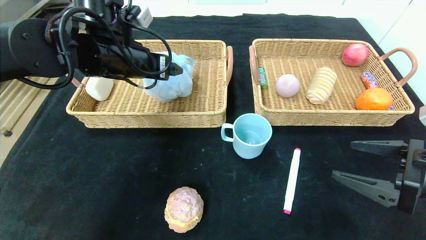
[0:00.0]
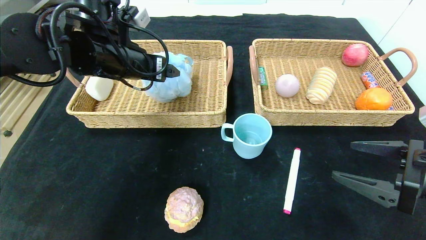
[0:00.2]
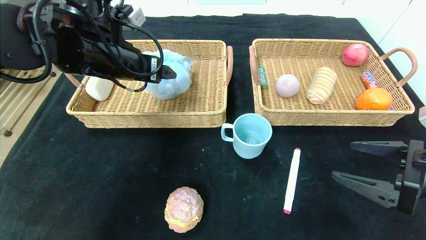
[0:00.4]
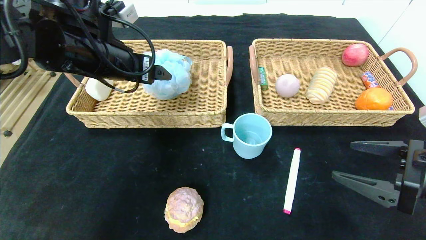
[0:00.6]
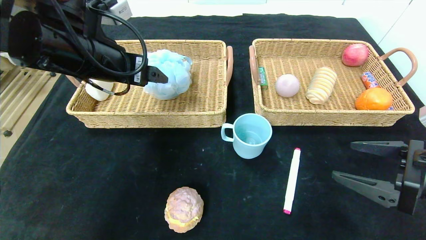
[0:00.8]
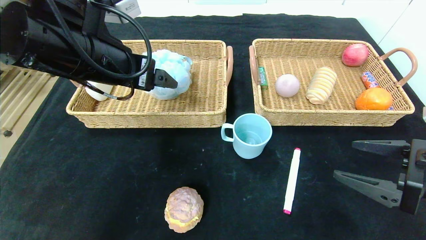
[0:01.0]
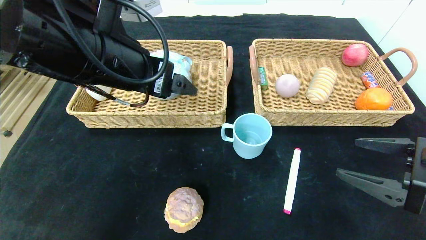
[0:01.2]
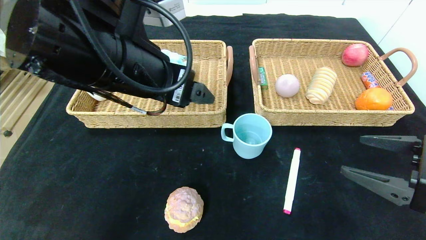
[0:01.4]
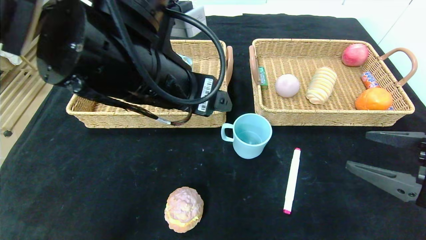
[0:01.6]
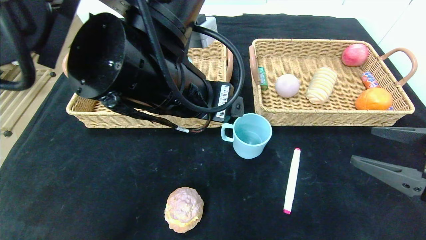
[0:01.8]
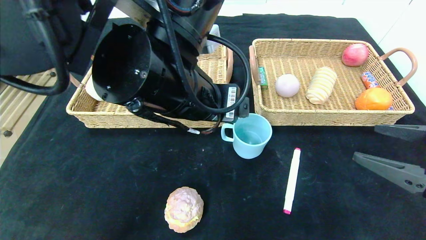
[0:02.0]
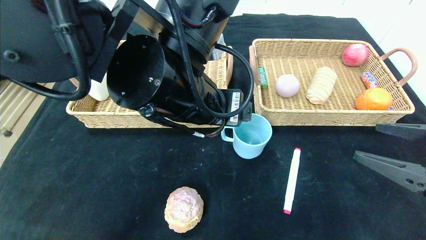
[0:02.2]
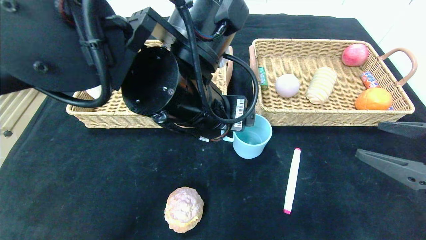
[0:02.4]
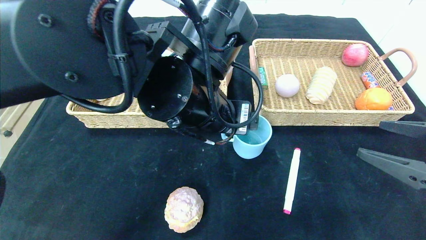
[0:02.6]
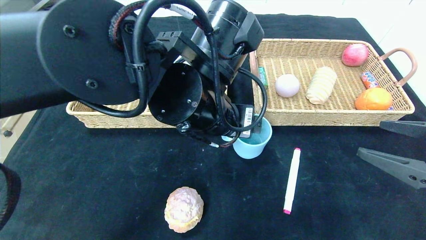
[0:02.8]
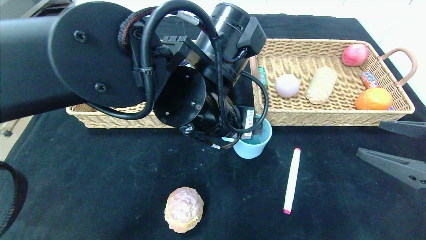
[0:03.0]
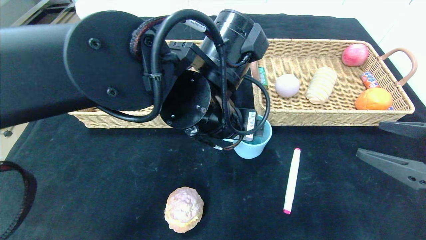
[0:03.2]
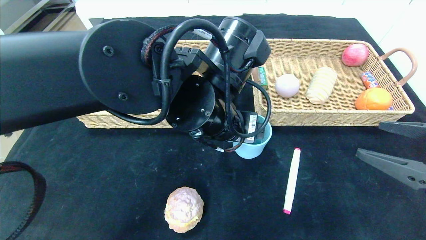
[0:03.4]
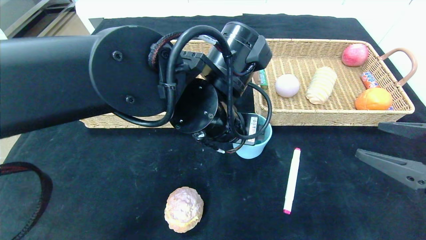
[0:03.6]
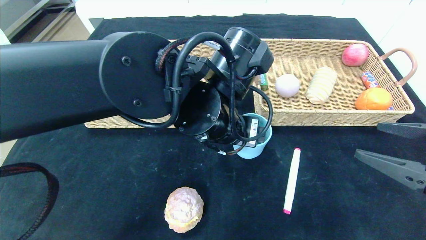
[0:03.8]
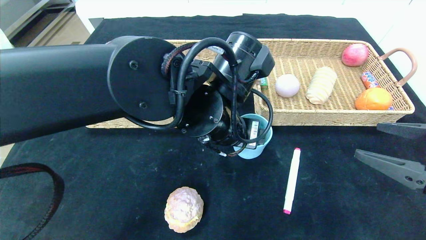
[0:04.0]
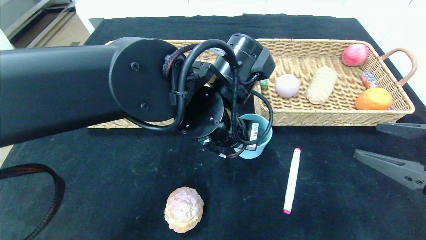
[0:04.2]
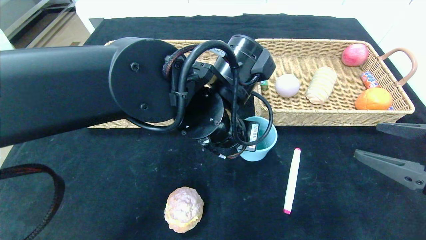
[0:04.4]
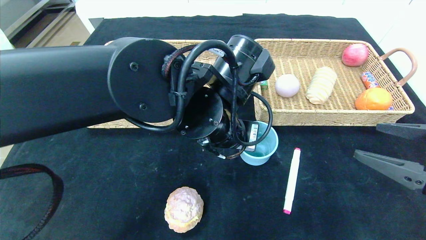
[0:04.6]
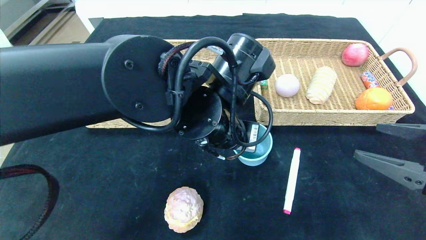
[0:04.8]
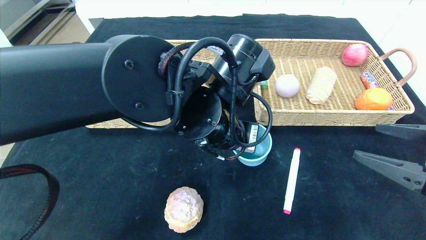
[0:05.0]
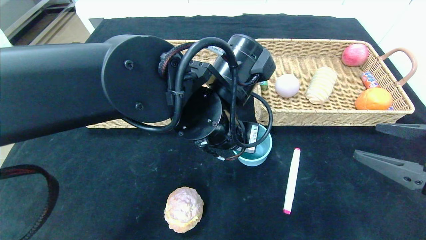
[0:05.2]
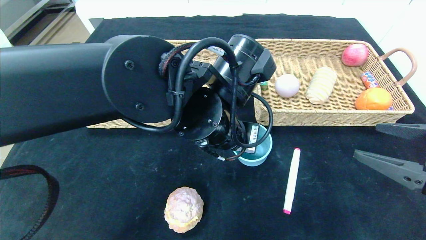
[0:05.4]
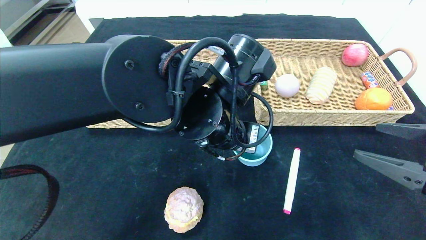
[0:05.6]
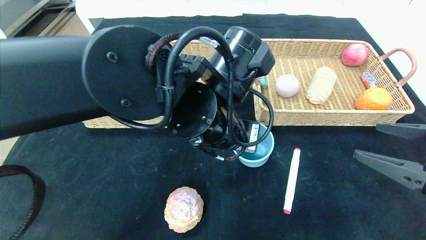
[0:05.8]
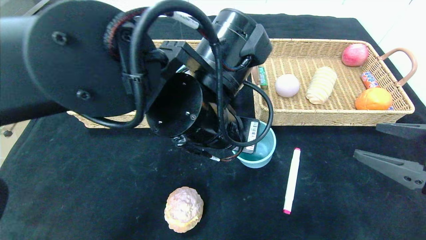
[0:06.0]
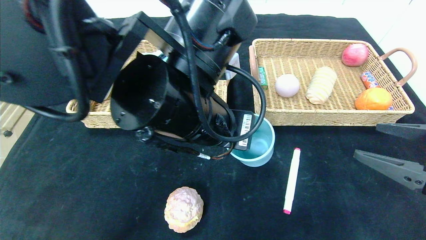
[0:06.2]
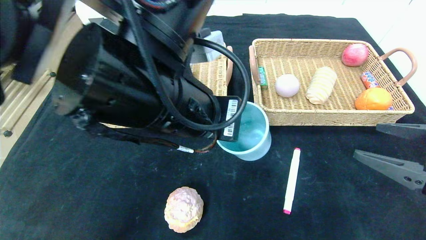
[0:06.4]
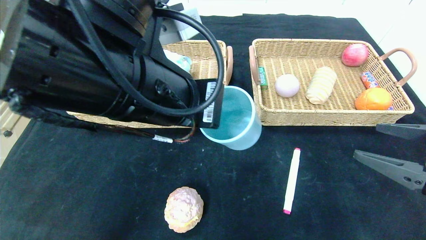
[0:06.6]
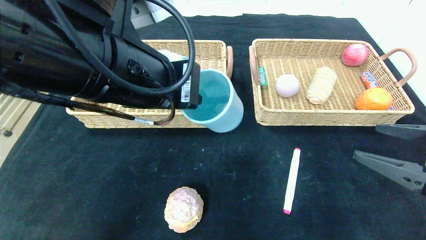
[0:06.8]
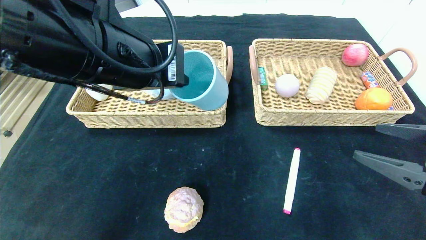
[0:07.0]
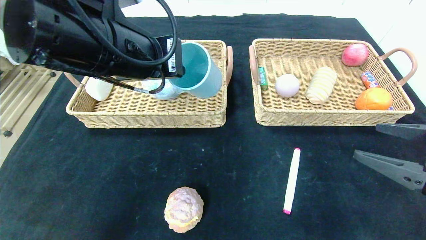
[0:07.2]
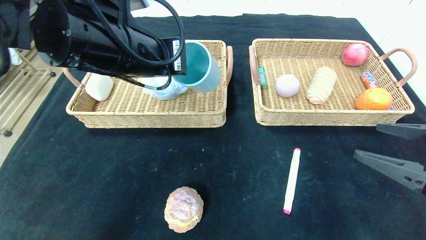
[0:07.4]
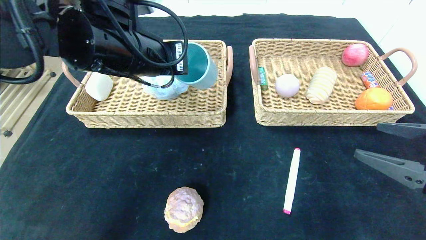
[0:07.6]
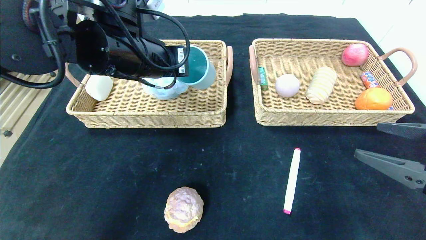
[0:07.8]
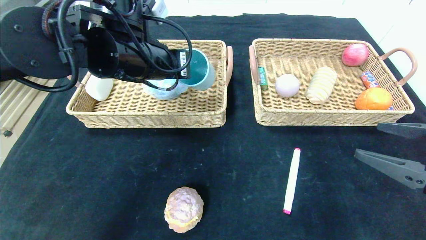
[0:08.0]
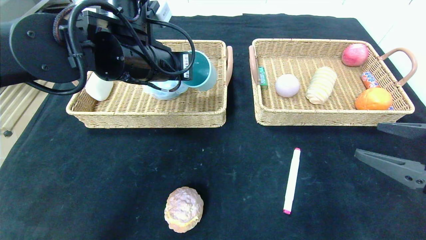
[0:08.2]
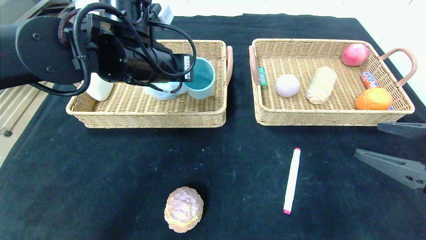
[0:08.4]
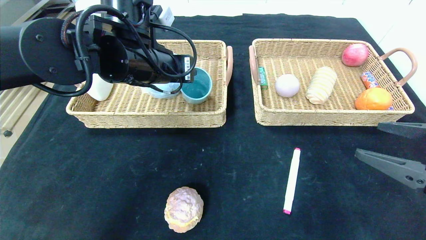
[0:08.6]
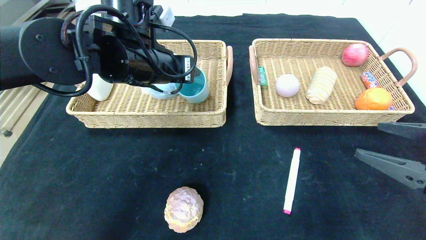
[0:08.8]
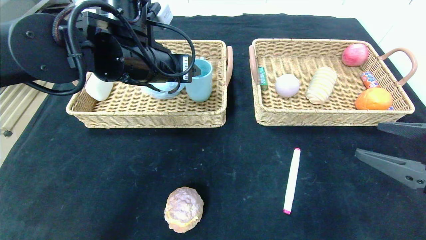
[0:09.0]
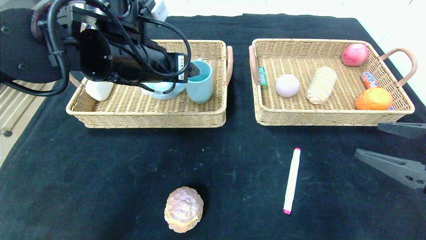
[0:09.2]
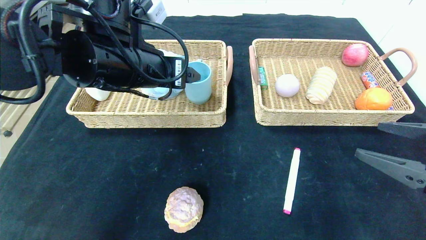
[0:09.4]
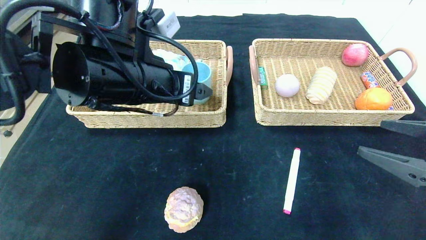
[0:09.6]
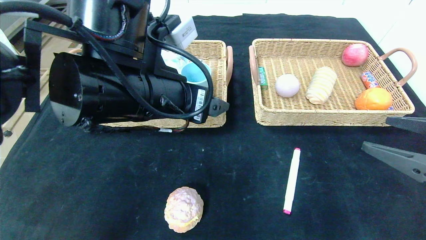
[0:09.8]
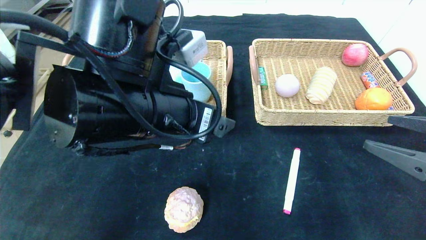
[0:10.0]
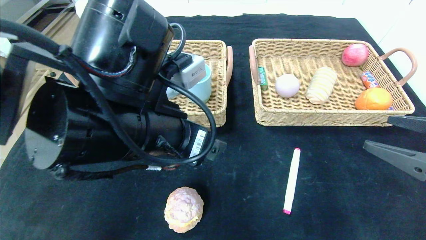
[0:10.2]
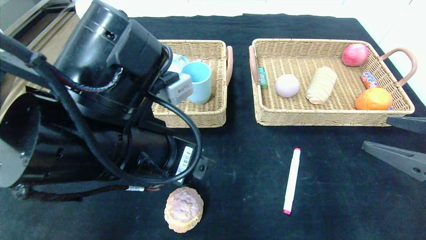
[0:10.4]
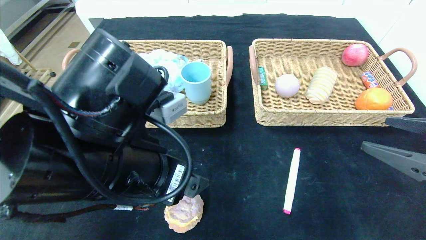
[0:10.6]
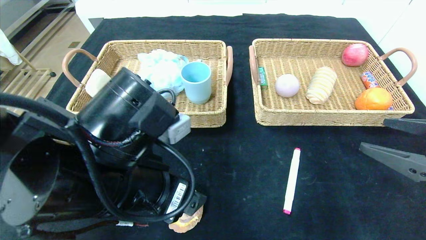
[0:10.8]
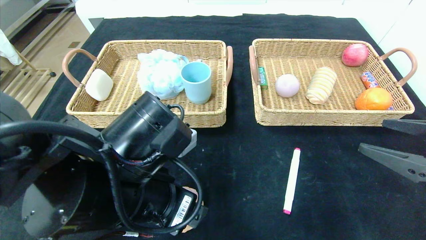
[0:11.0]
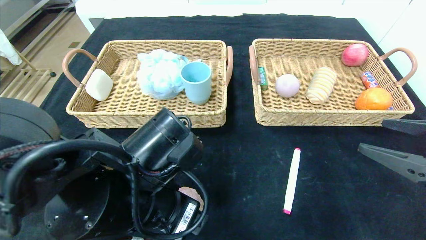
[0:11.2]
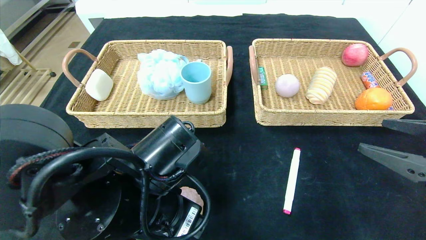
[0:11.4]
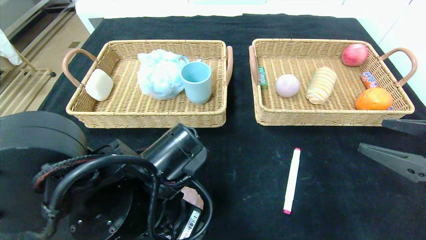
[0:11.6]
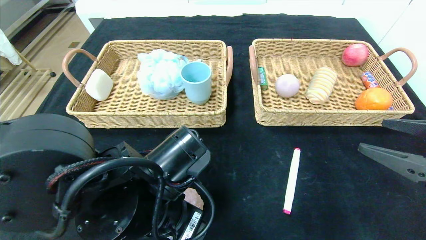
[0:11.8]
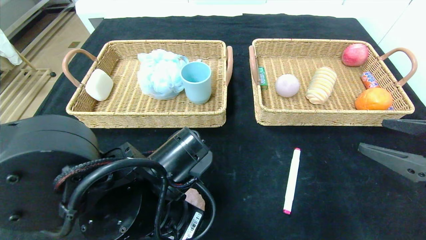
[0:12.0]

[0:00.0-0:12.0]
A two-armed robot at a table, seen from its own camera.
Step, 0:00.0 to 0:02.0: Pick up the bath ball and put it in the left basket.
Step, 0:02.2 to 0:10.4: Pick up the blue cup and put it in the left basket.
0:00.0 to 0:01.6: The left gripper travels backward and to the right by about 15 cm.
0:01.6 to 0:03.0: The left gripper moves to the right and downward, approximately 10 cm.
0:03.0 to 0:04.4: The left gripper closes.
0:04.4 to 0:06.0: The left gripper closes.
0:06.0 to 0:07.6: The left gripper heads to the left, upward and forward, covering about 15 cm.
0:07.6 to 0:09.0: The left gripper opens its fingers.
0:09.0 to 0:10.4: The left gripper shifts roughly 15 cm backward.
0:10.4 to 0:12.0: The left gripper moves downward, about 10 cm.

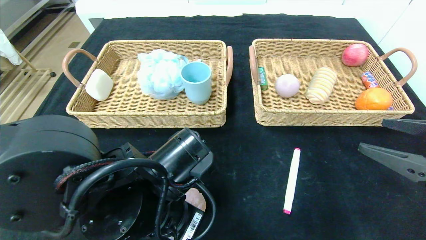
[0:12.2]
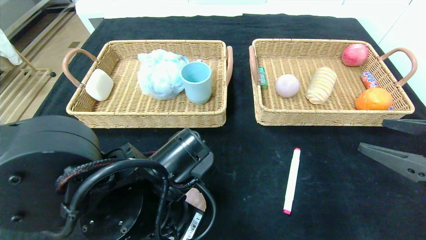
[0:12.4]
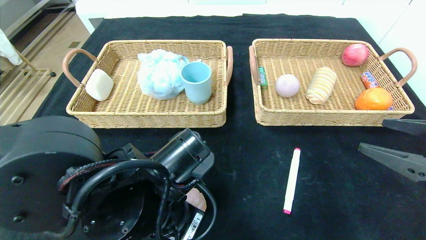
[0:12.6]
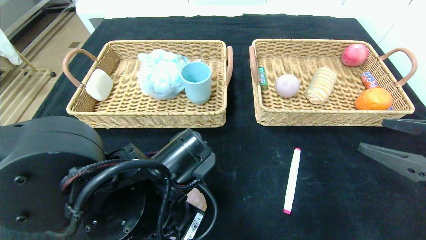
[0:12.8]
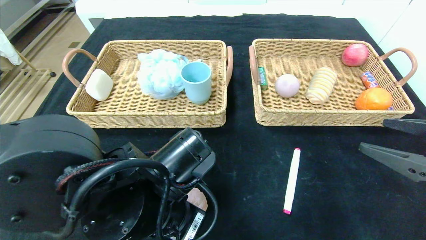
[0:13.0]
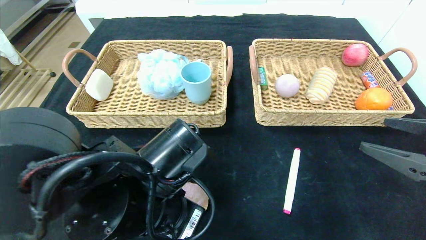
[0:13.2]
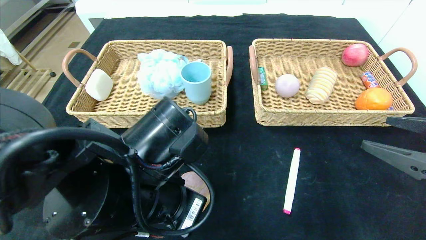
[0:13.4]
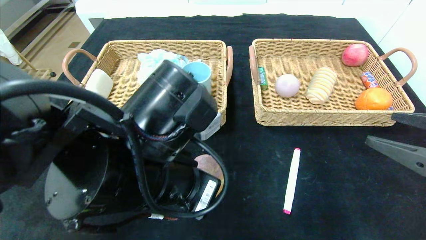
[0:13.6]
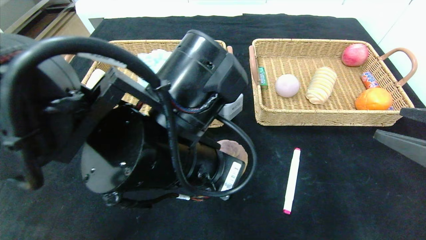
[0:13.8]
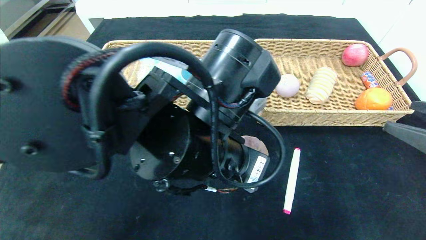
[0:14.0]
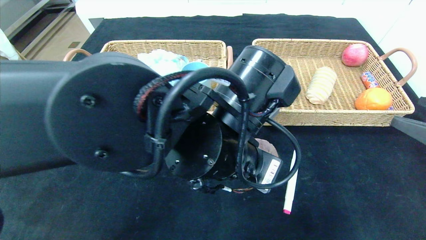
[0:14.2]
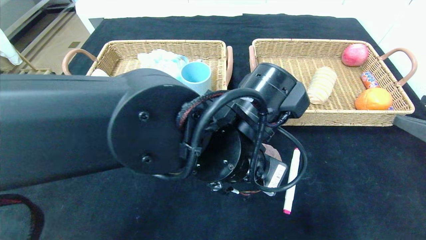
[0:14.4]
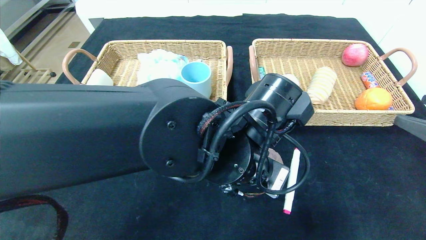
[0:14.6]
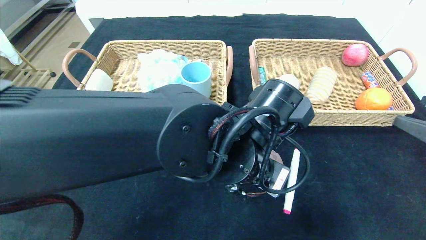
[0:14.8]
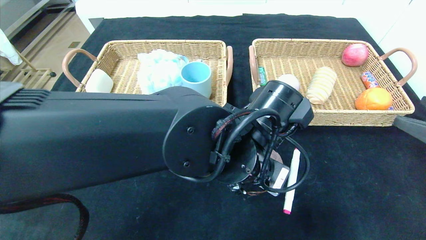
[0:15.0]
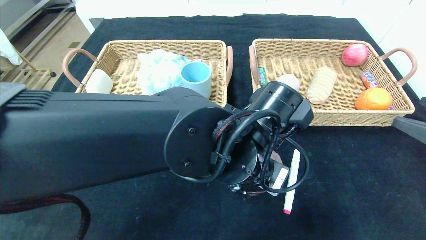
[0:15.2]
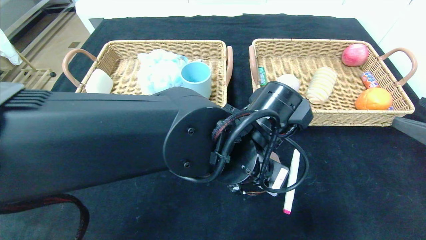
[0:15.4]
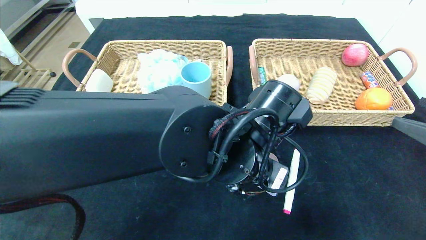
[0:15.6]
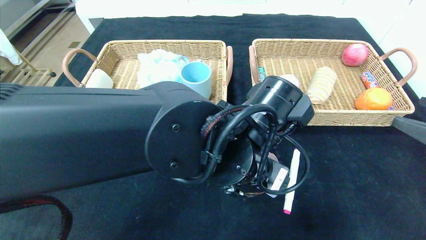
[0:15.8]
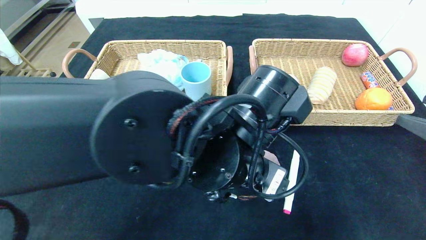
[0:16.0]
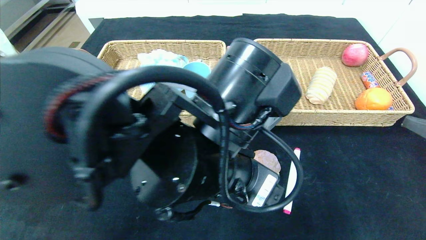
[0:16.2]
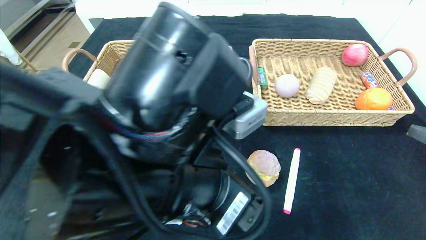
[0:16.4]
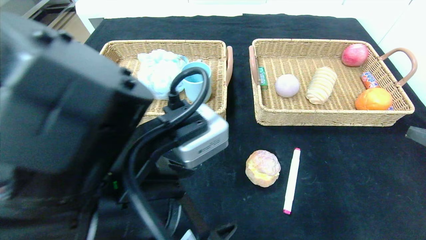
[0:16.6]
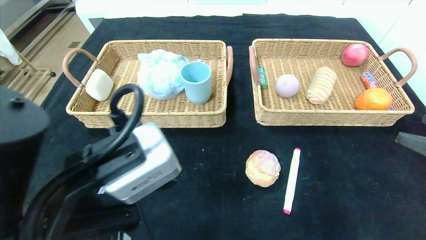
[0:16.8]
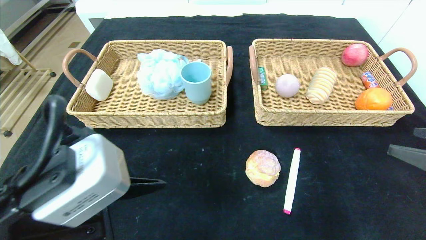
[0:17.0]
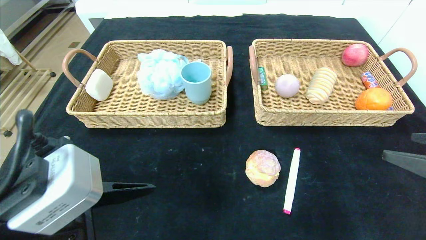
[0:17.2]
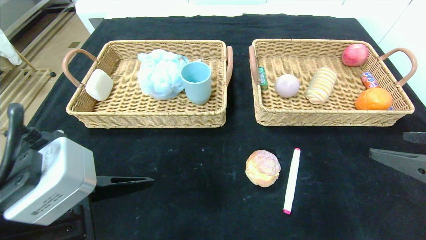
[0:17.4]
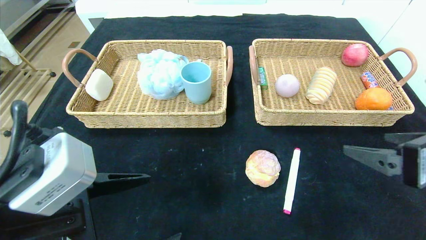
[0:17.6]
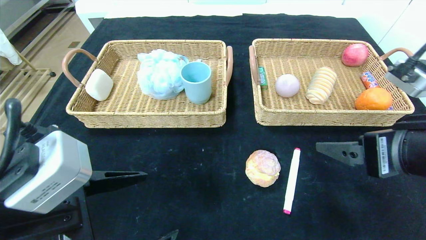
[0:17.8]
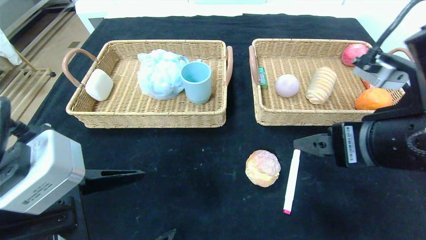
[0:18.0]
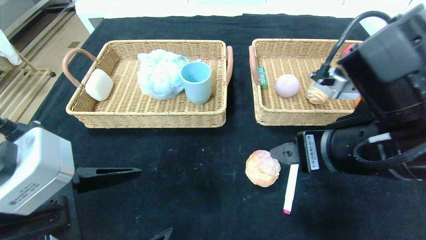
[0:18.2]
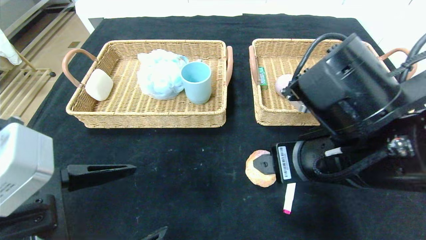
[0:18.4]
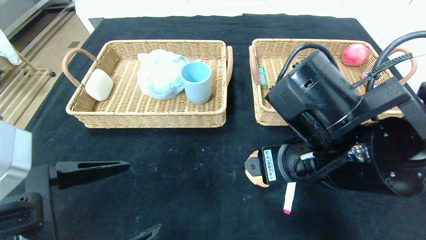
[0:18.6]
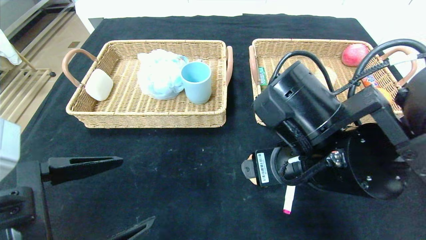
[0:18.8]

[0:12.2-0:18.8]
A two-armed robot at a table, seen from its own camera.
Step, 0:12.2 to 0:16.4: Place the round bread in the center of the table.
0:12.2 to 0:13.8: The left gripper is displaced upward by approximately 10 cm.
0:13.8 to 0:15.4: The left gripper shifts approximately 10 cm to the right.
0:15.4 to 0:17.2: The left gripper shifts some 25 cm to the left and backward.
0:17.2 to 0:18.8: The right gripper moves to the left, about 25 cm.
